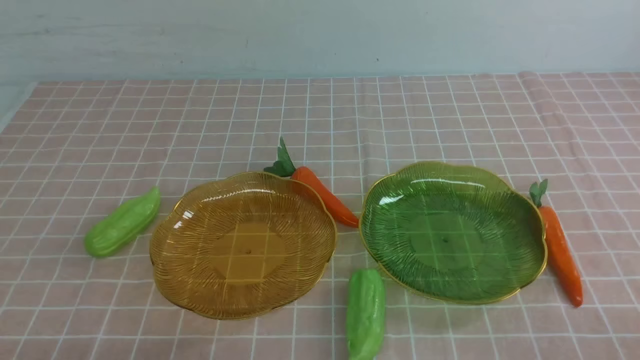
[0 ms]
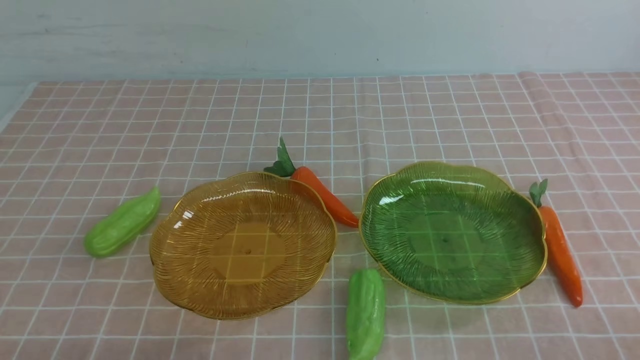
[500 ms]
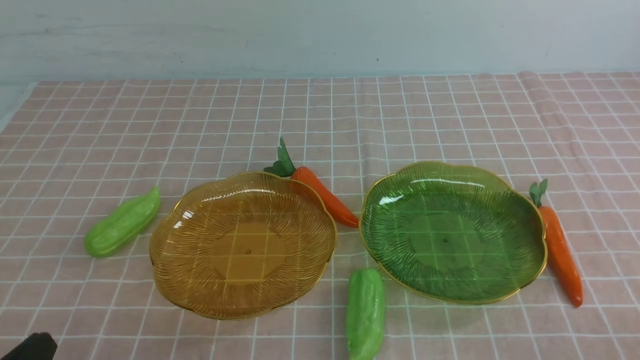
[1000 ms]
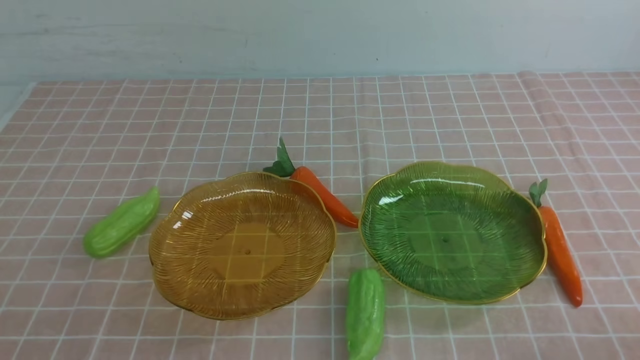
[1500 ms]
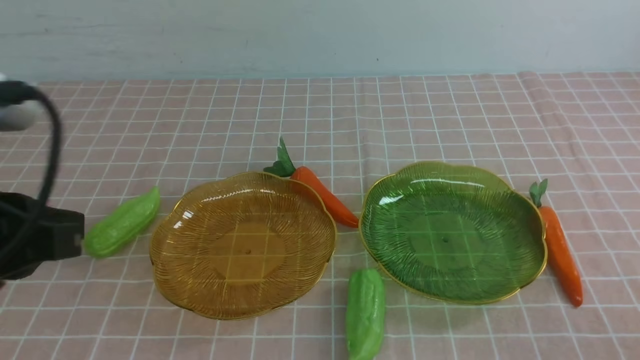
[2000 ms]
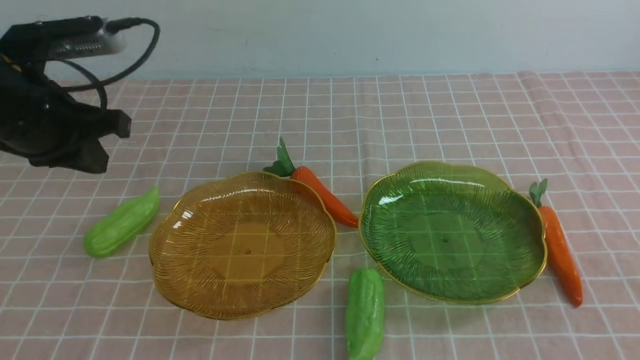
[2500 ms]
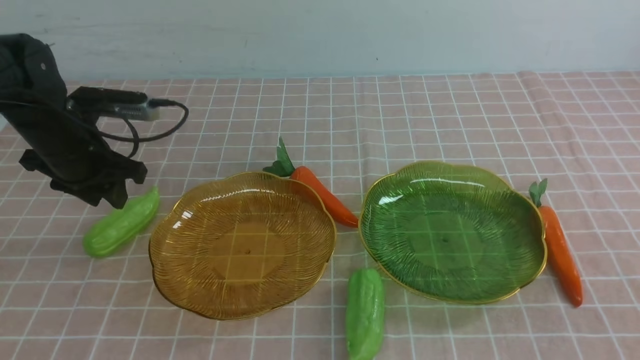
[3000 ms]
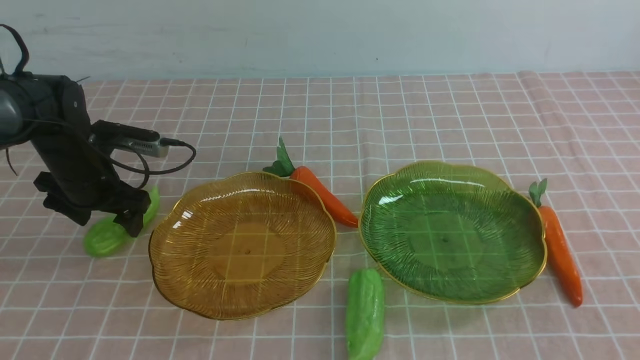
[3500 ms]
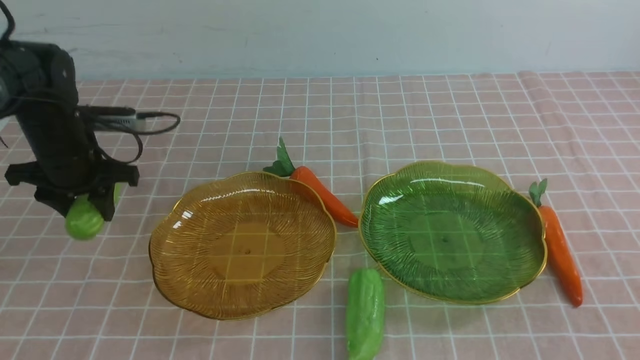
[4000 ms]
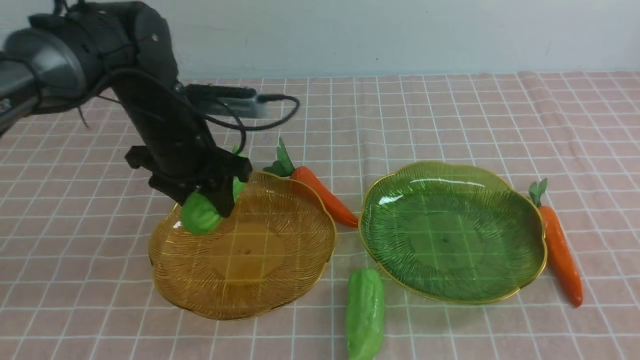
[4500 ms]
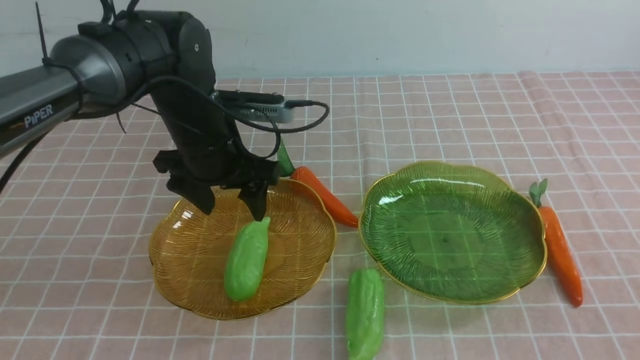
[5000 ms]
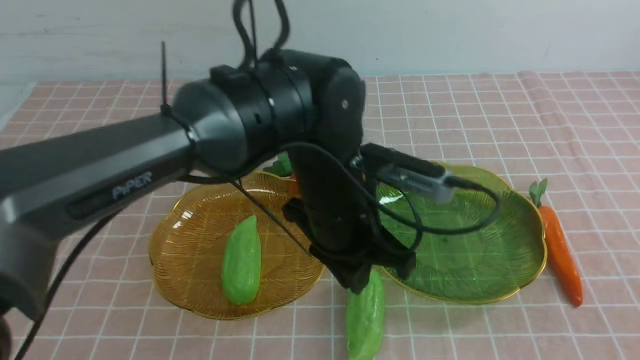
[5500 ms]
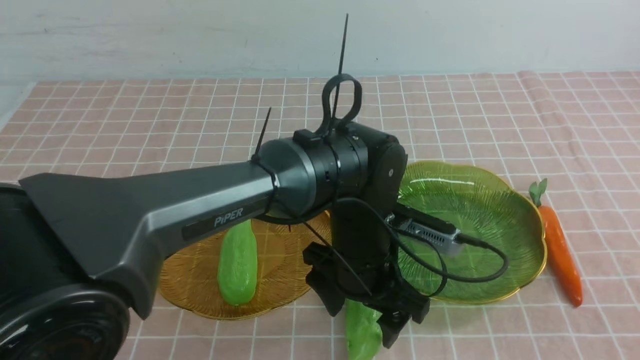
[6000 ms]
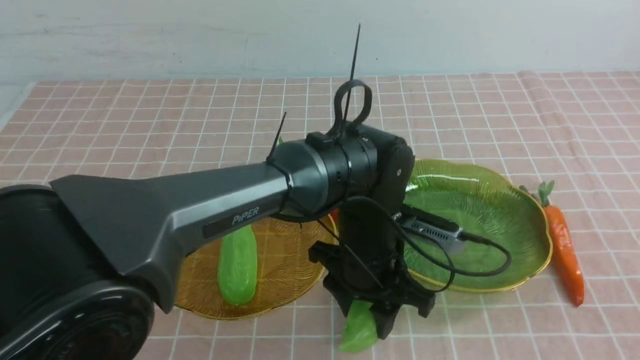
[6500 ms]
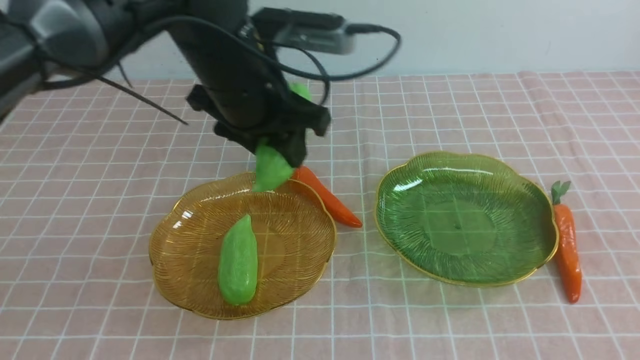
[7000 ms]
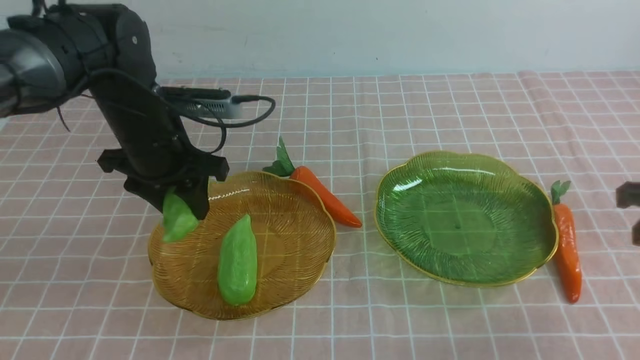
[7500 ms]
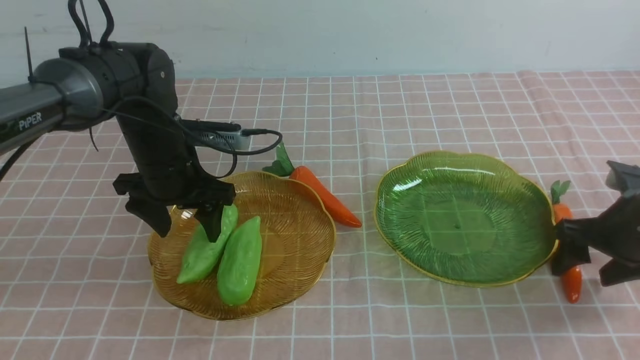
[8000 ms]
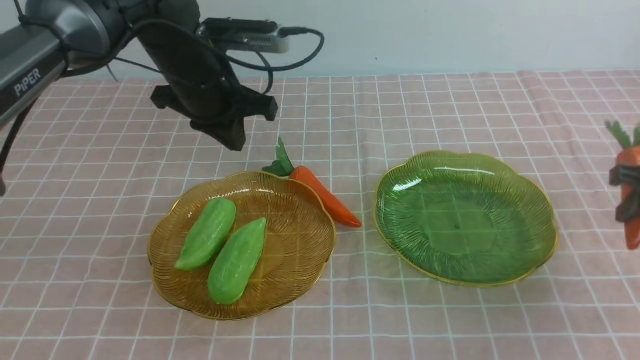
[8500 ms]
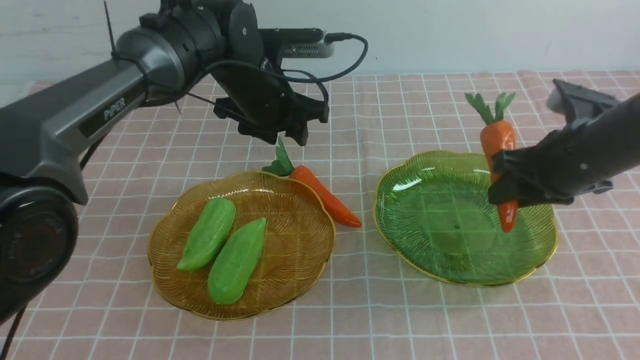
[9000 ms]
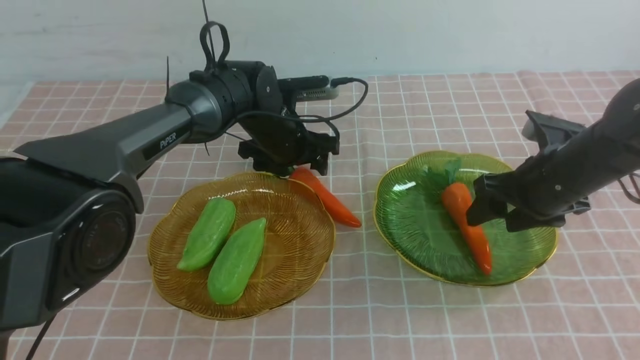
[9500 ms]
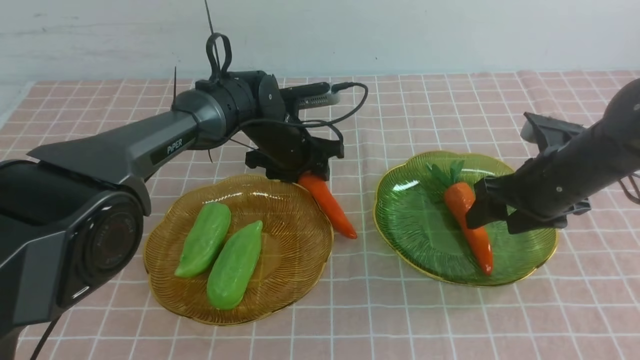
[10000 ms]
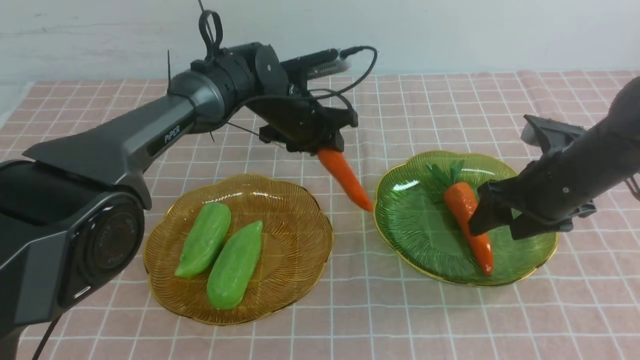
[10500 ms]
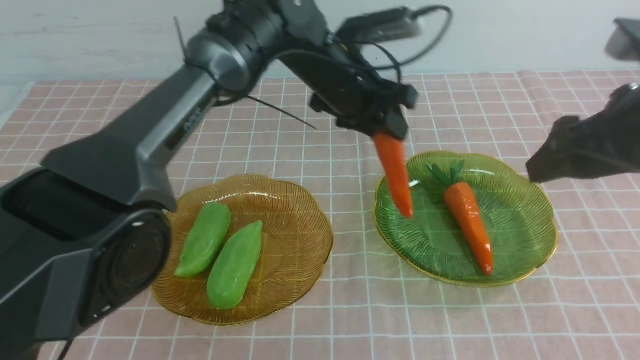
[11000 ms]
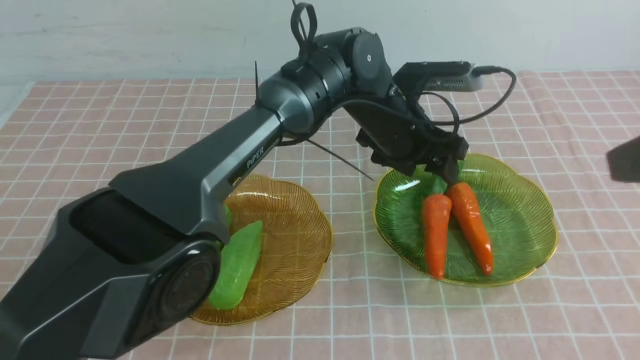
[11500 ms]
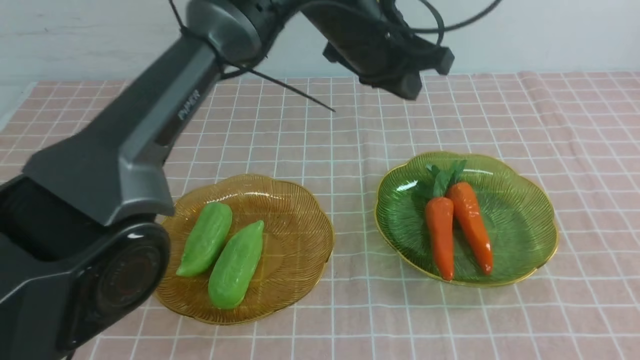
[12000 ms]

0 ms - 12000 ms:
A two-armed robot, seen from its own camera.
Step, 0 ms - 7500 ms: use the left arm to grab a chayote and put it into the left plate.
Step, 8000 ms - 9000 ms: use the right arm to grab a carrot and put it into the right plate.
Step, 9500 ms - 11500 ms: use the left arm to grab a carrot and put it into the right plate.
0 ms - 2000 ms: The left gripper heads upward and forward, covering roughly 25 cm.
2000 ms - 4000 ms: The left gripper is displaced forward, downward and to the right by about 20 cm, and opens up.
4000 ms - 6000 ms: The left gripper is displaced to the right by about 20 cm; the right gripper is displaced forward by about 5 cm.
6000 ms - 8000 ms: The right gripper moves forward, some 25 cm, and opens up, while the left gripper moves forward and to the left, approximately 15 cm.
8000 ms - 10000 ms: The right gripper opens. Meanwhile the left gripper is displaced to the right by approximately 5 cm, moves some 10 cm downward and comes back, and opens, then closes again.
10000 ms - 12000 ms: The left gripper shifts some 35 cm backward and upward, and closes its fingers. The right gripper goes about 35 cm backward, and closes.
